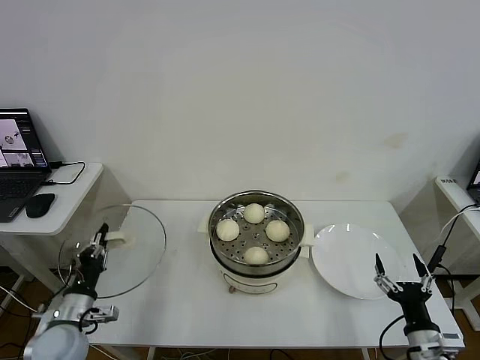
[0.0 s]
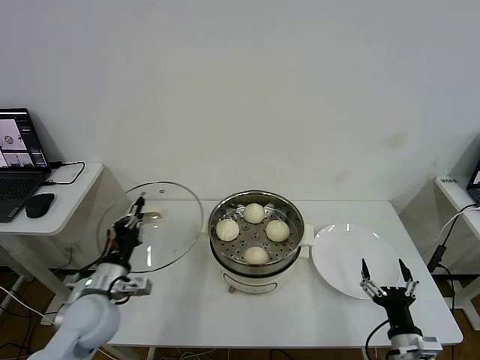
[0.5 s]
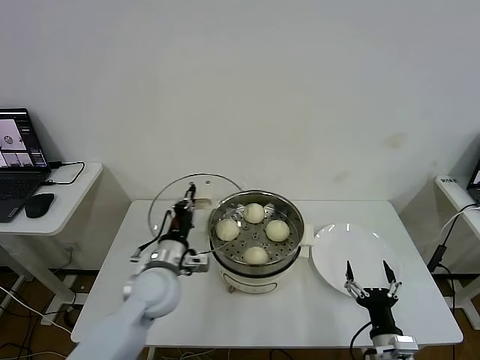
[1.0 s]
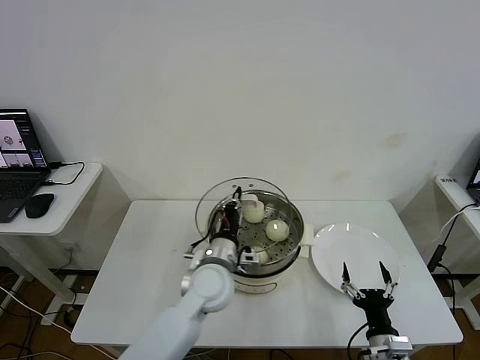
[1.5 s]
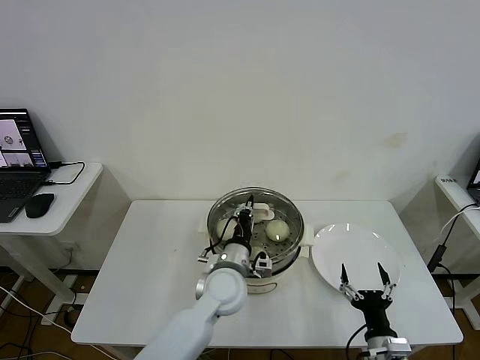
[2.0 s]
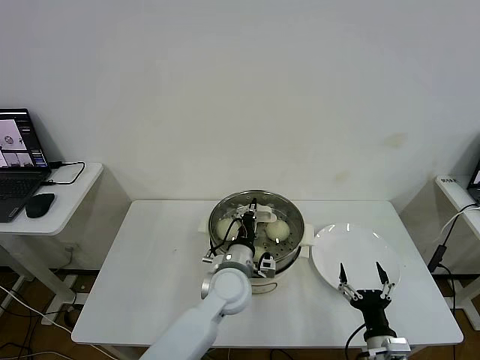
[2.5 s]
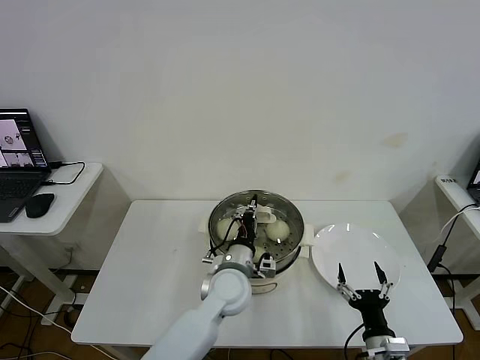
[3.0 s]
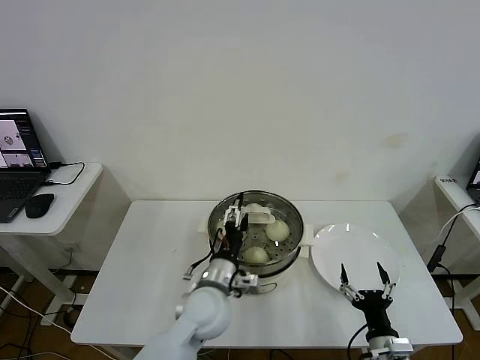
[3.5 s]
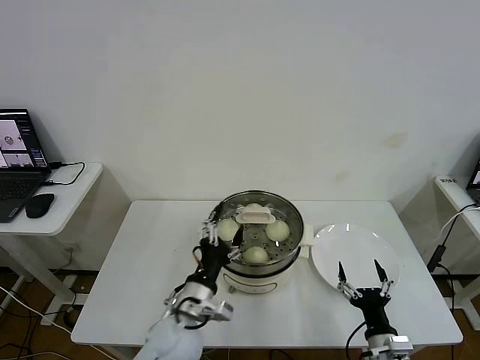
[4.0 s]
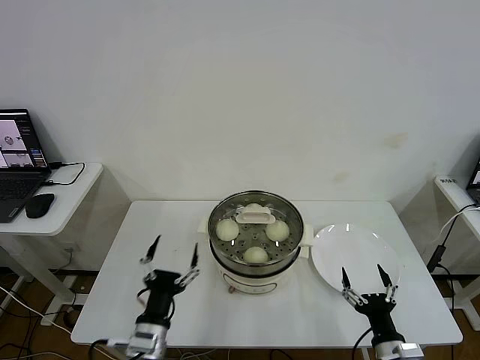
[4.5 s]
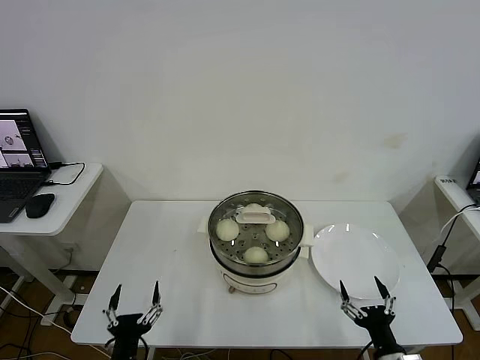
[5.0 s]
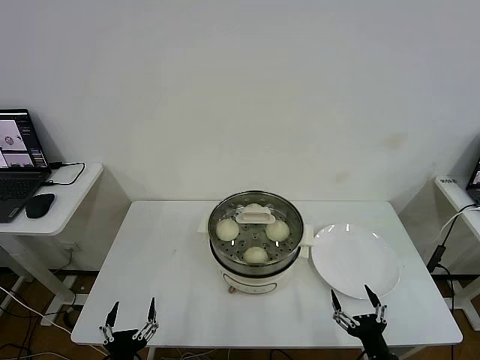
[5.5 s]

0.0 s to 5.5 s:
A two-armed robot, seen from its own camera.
Step, 0.0 to 3.5 s: Place the pot lid on the steamer with left gripper.
0.0 to 2.0 s: The right gripper shifts roughly 5 cm to the left; the left gripper goes about 35 cm to the right.
2.0 to 3.5 s: The left gripper opens up.
3.5 to 5.5 s: The left gripper moves backward, to the left and downward, approximately 30 cm.
